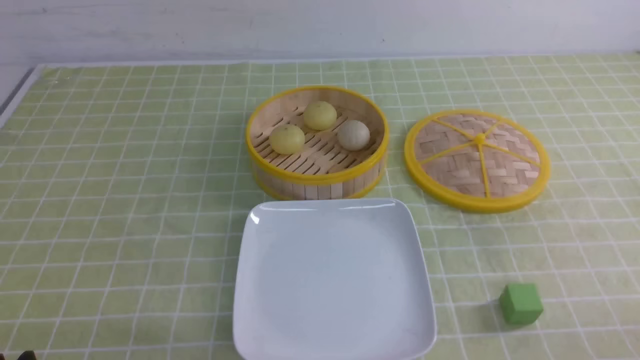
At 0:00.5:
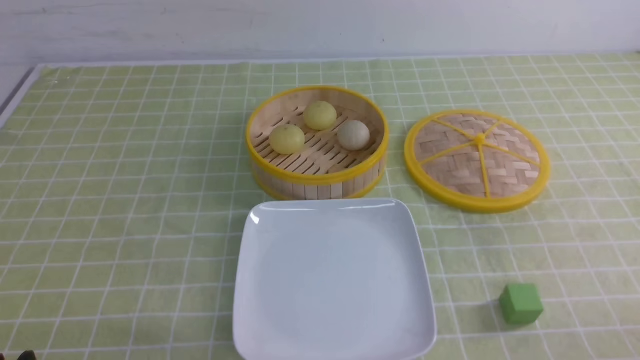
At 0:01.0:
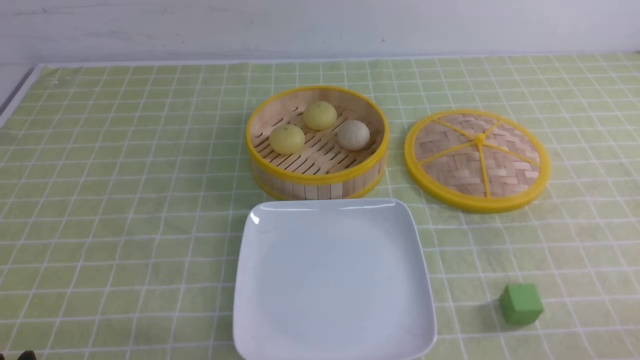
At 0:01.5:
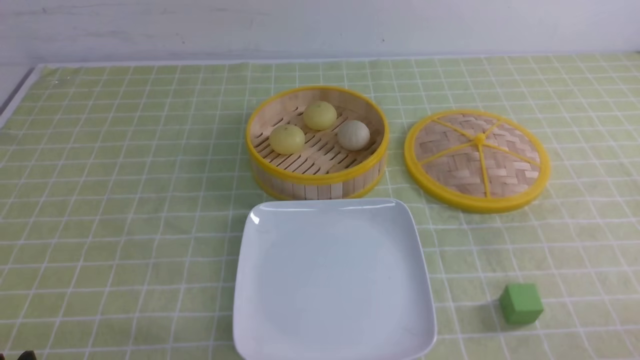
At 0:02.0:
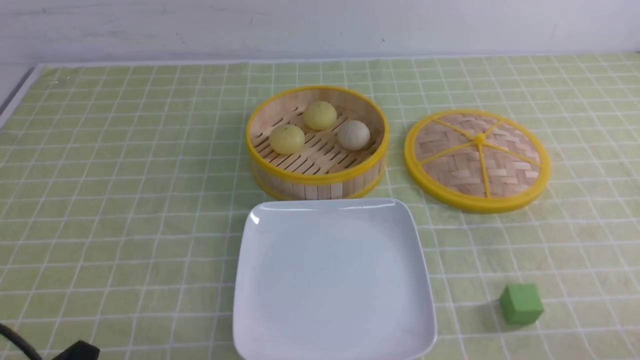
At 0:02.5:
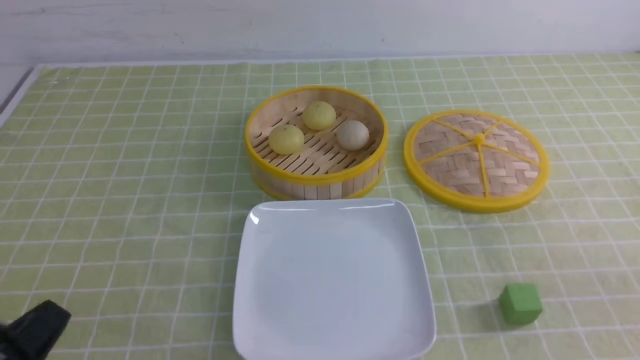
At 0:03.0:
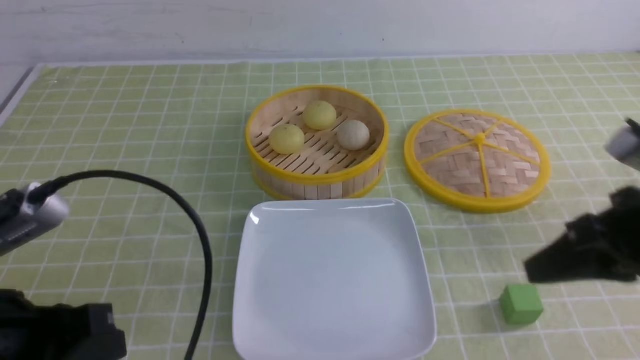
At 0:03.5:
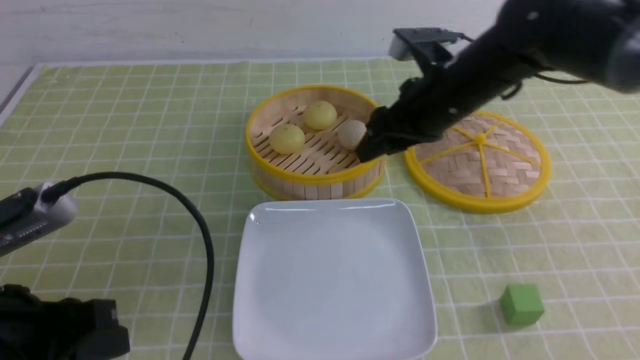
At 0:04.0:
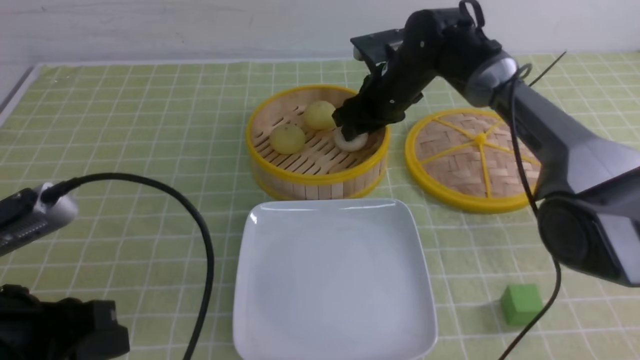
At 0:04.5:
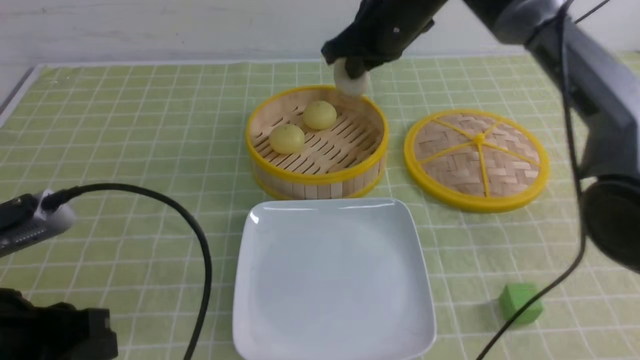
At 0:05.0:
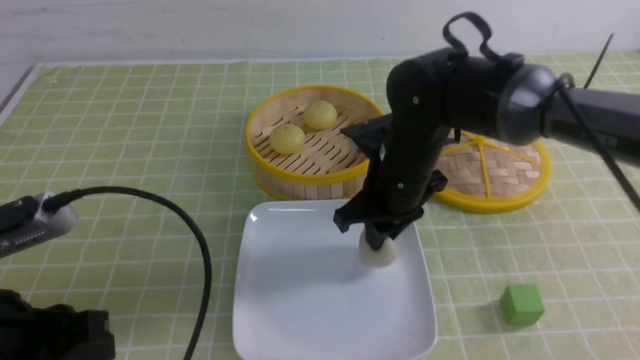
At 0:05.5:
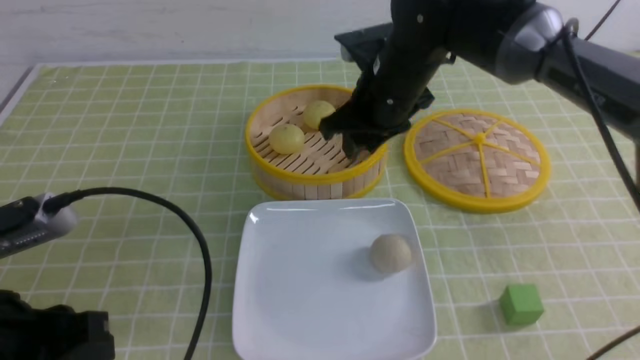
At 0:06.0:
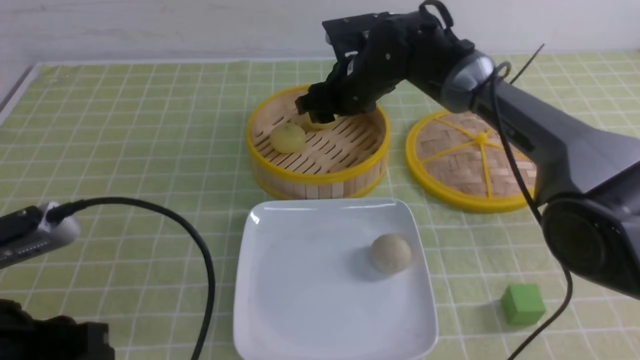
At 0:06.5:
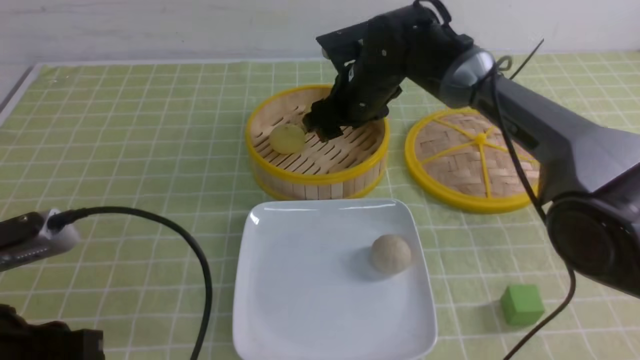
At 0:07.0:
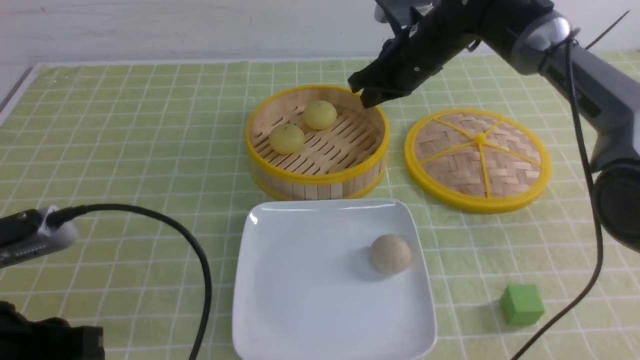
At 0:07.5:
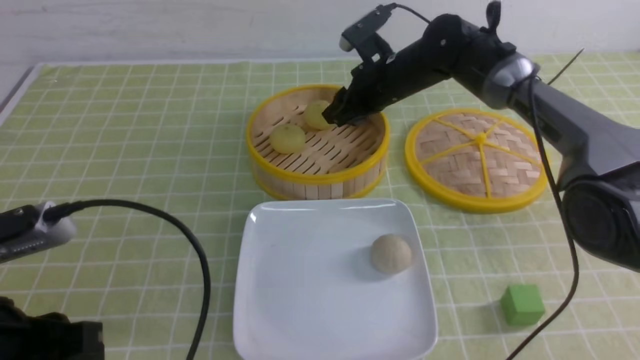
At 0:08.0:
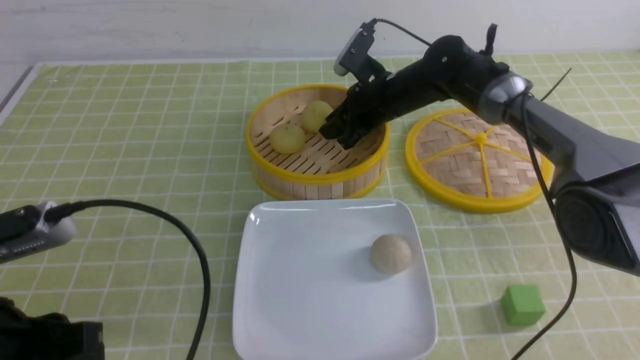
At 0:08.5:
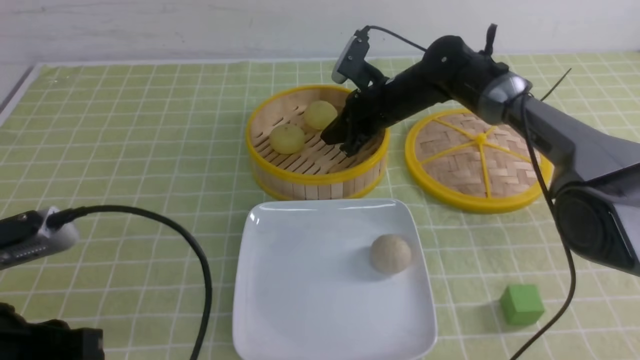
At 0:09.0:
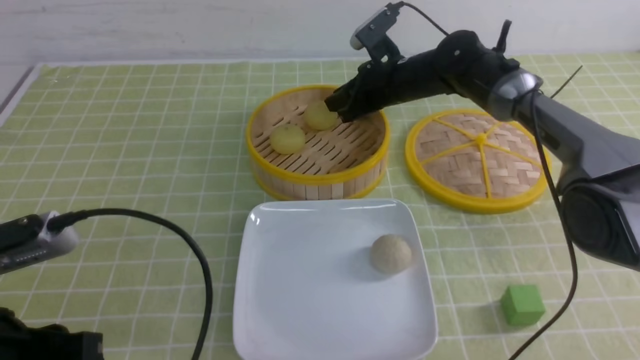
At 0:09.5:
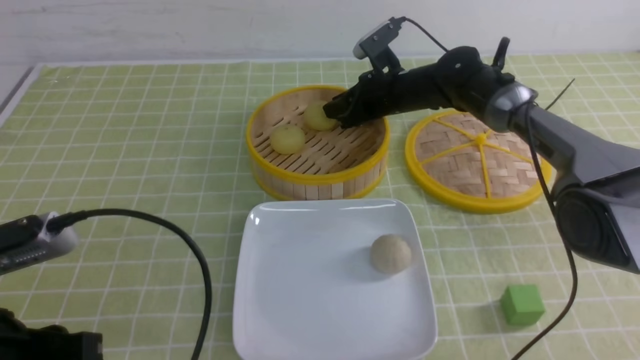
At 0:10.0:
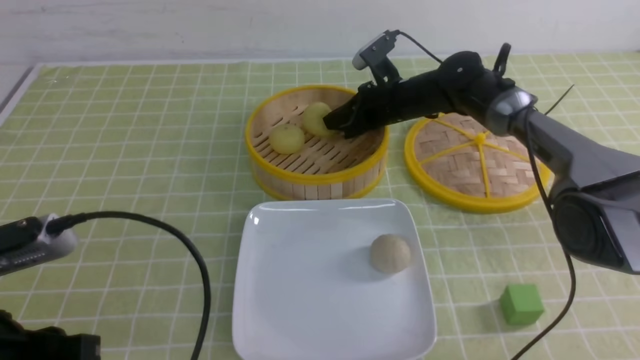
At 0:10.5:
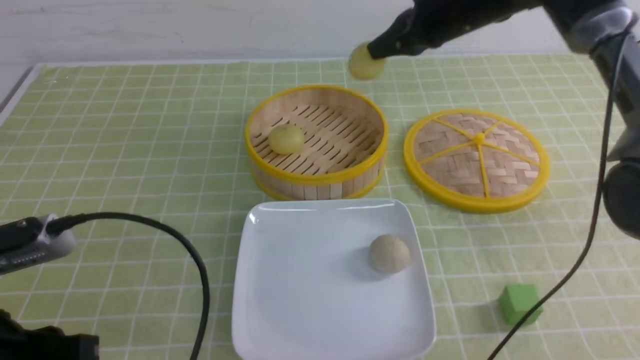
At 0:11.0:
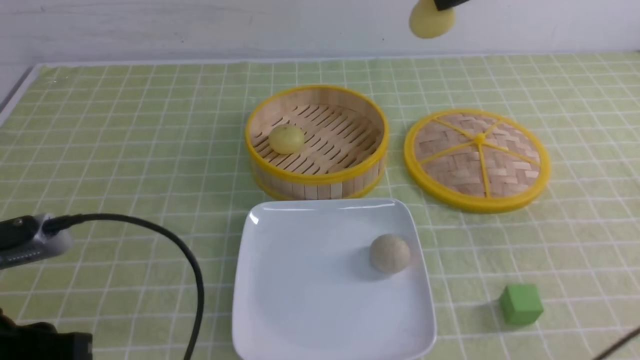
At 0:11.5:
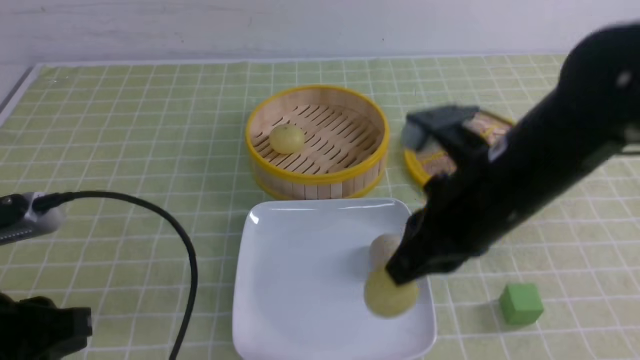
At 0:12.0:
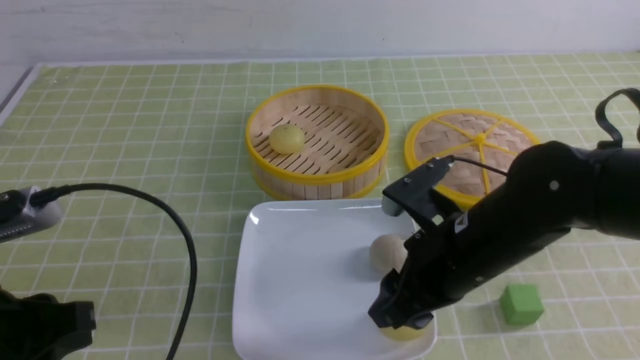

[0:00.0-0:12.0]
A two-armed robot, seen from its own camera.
Step, 0:00.0 to 0:04.0: use the right arm to grab the steamed stuffed bun that is closest to it.
Step, 0:04.5 to 0:05.0: use the right arm to put the steamed stuffed bun into the plate.
Step, 0:05.5 to 0:10.0: use the right arm to grab the steamed stuffed bun that is closest to it.
0:02.0 to 0:04.0: The left gripper moves upward and forward, roughly 10 cm, and closes, then reopens. The right gripper goes approximately 50 cm forward and to the left, and closes and opens again.
0:04.0 to 0:06.0: The right gripper goes backward and returns, about 15 cm each way, and closes, then opens again.
0:06.0 to 0:08.0: The right gripper moves downward, some 5 cm, and closes.
0:08.0 to 0:10.0: The grippers make only small movements.
0:10.0 to 0:12.0: The right gripper is displaced backward by about 30 cm, and opens up.

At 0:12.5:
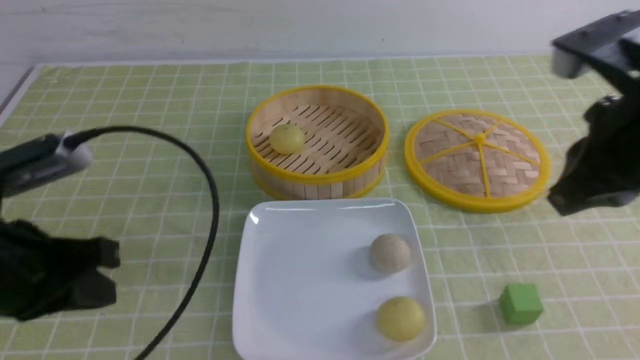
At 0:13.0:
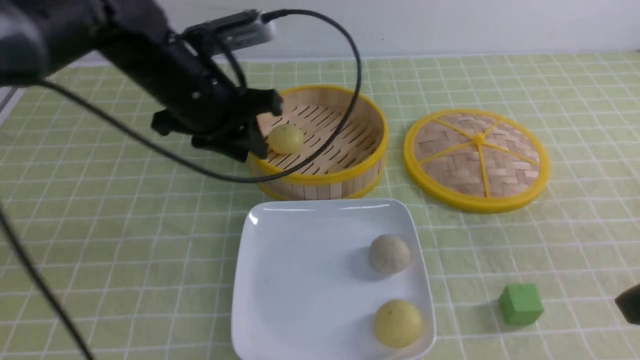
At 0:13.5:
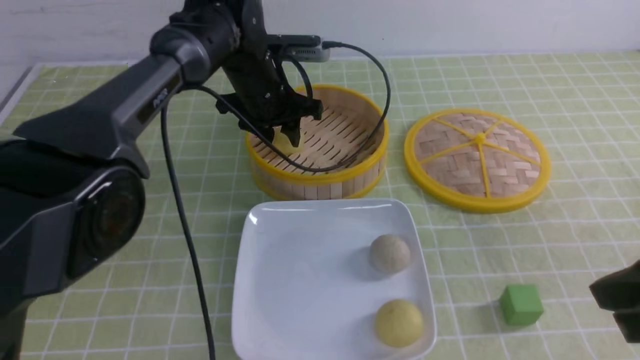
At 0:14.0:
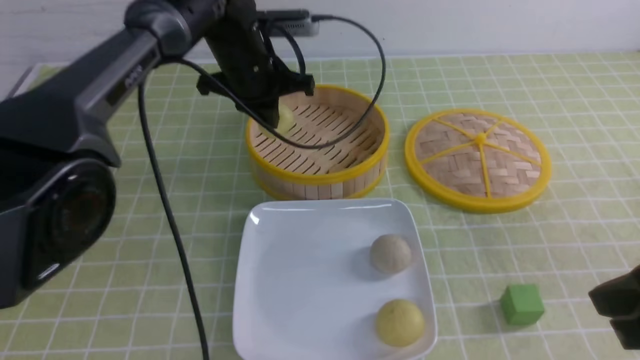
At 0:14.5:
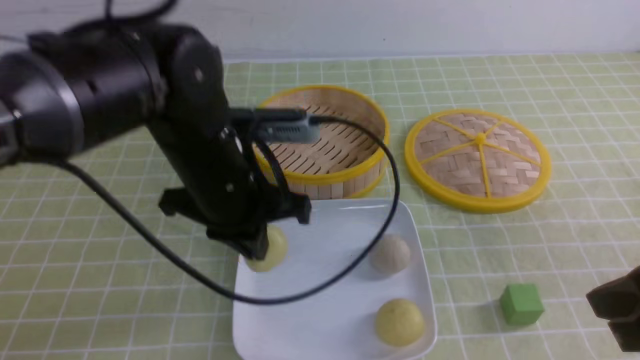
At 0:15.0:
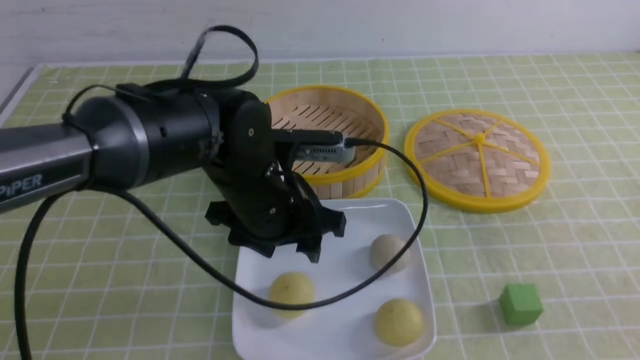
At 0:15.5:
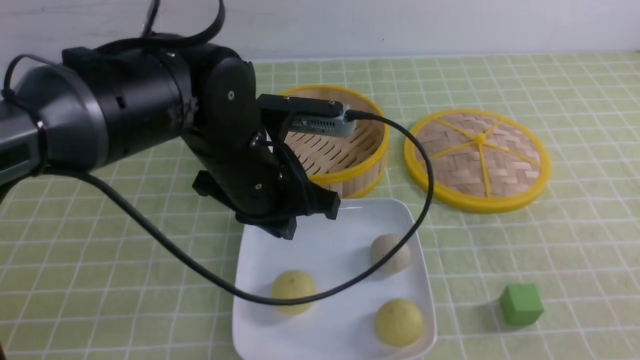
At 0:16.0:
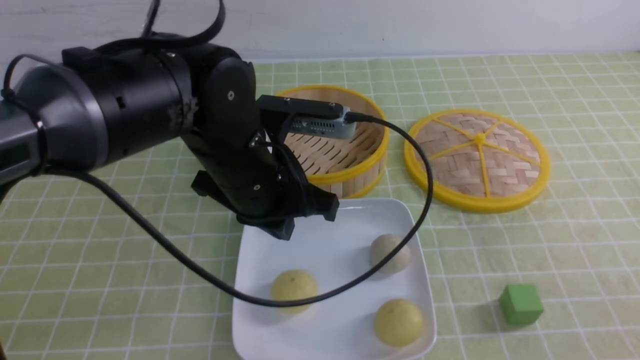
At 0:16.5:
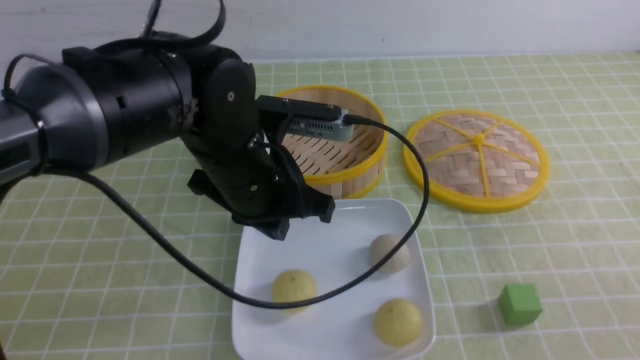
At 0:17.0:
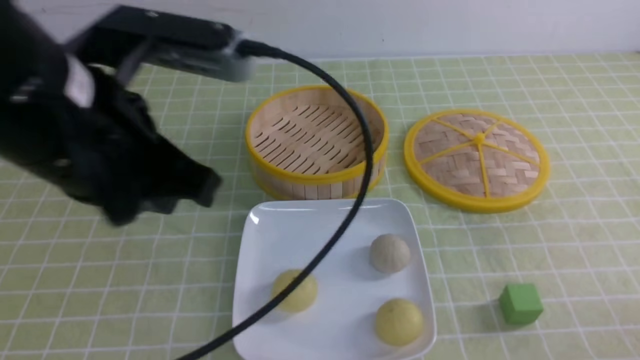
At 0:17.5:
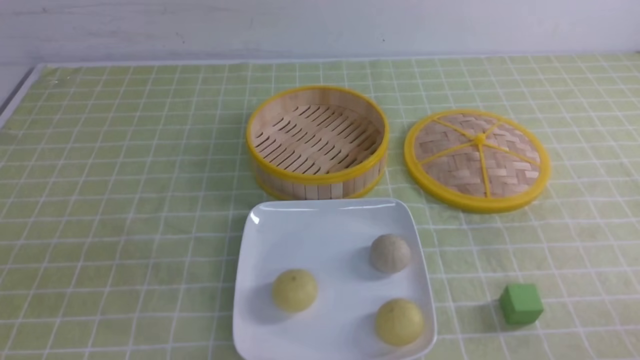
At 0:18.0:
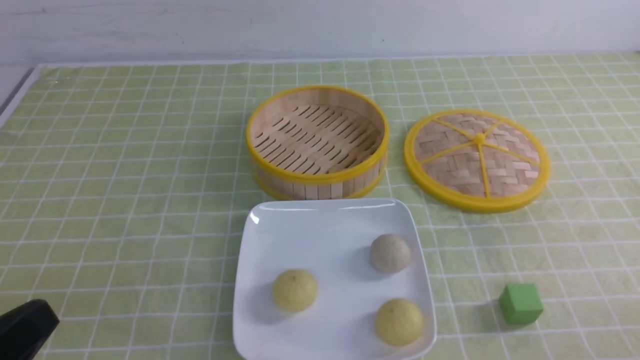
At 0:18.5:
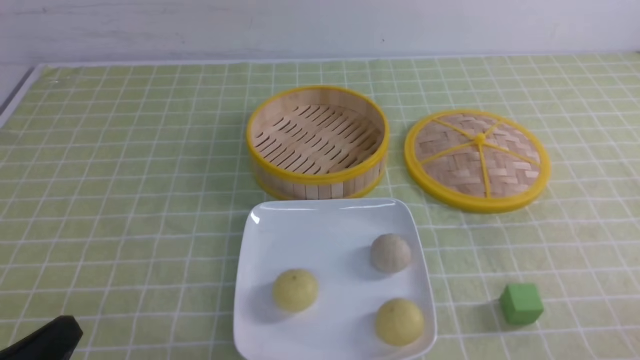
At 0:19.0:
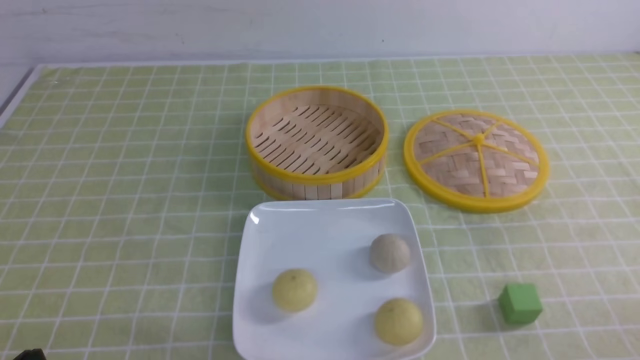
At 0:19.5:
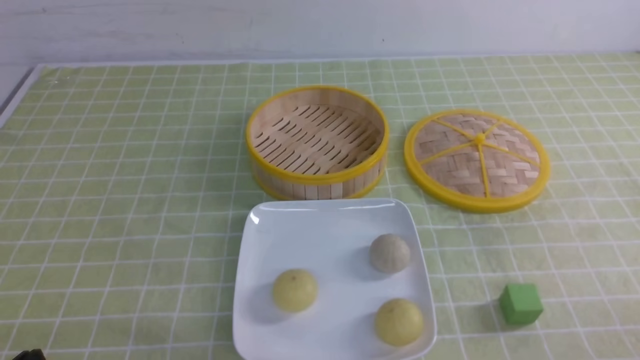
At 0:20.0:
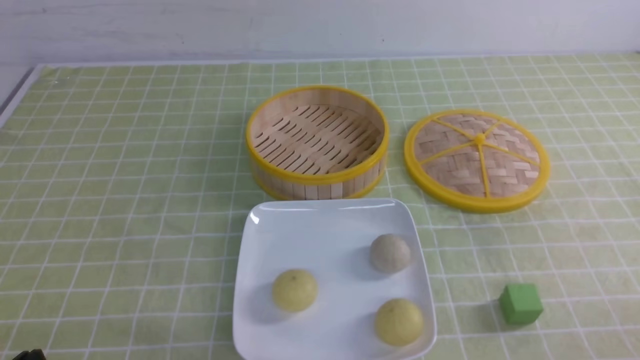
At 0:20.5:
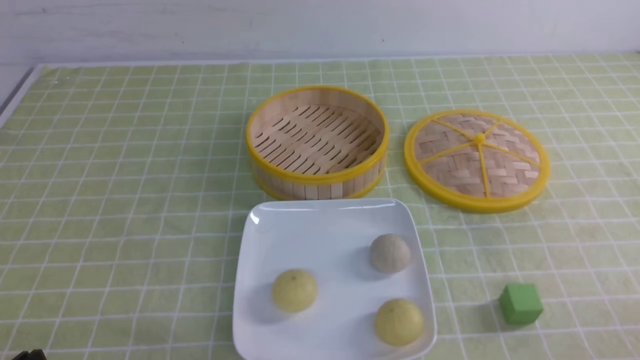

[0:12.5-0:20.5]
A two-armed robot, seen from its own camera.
Step, 0:12.5 to 0:13.5: use the left arm to grab the steamed stuffed bun that is closest to it.
Step, 0:14.0 to 0:14.5: use the left arm to put the steamed stuffed bun into the plate.
0:12.5 to 0:14.5: The left gripper moves to the right and forward, roughly 20 cm, and opens, then closes once more; the right gripper is displaced backward and downward by approximately 10 cm.
0:14.5 to 0:16.5: The right gripper travels backward, downward and to the right by about 15 cm. The left gripper opens, then closes once more.
0:16.5 to 0:18.5: The right gripper moves downward, roughly 5 cm. The left gripper moves backward and to the left, approximately 30 cm.
0:18.5 to 0:20.5: The grippers stay close to where they were, moving slightly.
